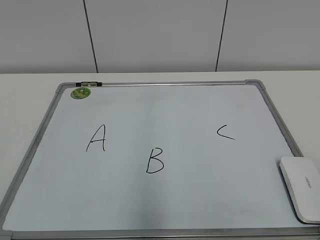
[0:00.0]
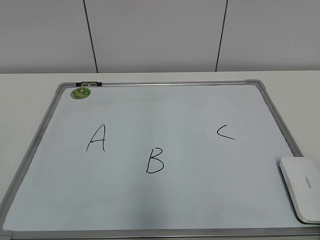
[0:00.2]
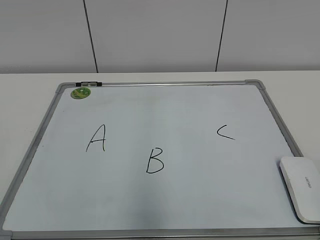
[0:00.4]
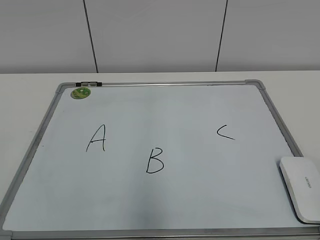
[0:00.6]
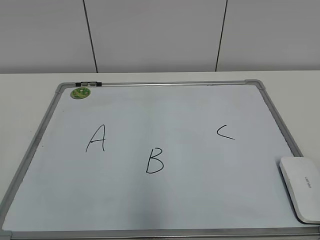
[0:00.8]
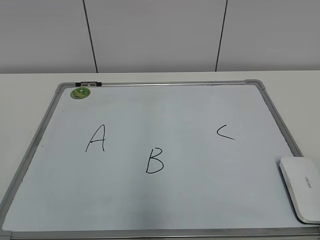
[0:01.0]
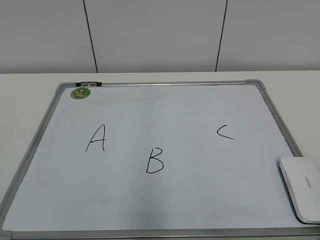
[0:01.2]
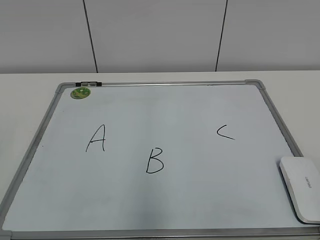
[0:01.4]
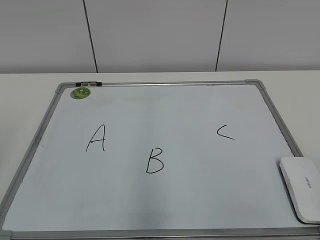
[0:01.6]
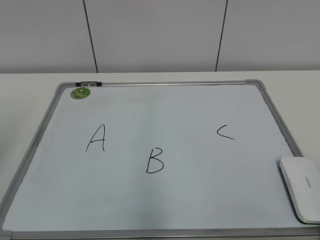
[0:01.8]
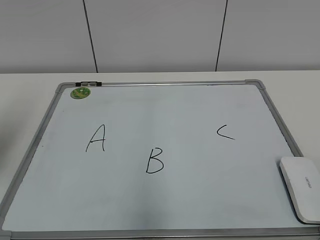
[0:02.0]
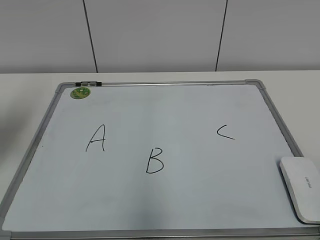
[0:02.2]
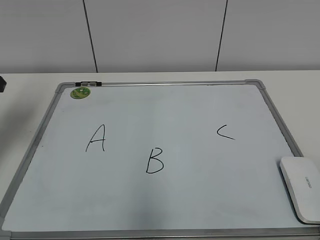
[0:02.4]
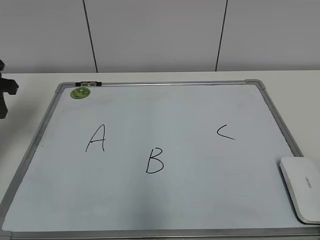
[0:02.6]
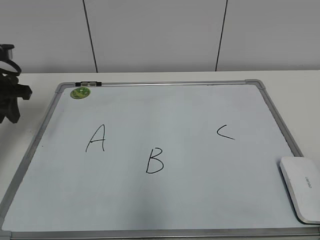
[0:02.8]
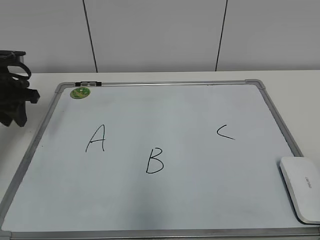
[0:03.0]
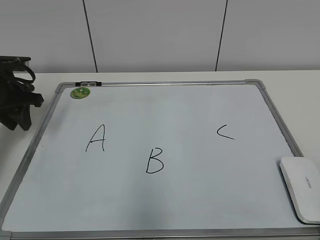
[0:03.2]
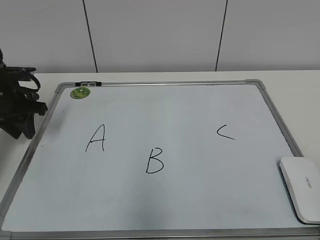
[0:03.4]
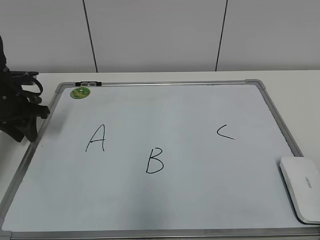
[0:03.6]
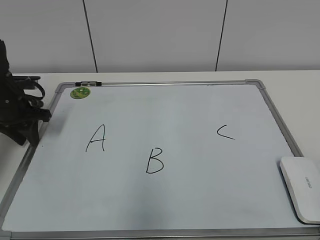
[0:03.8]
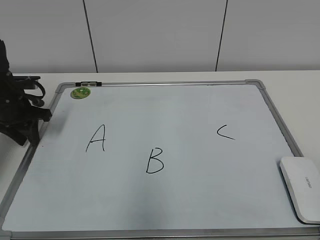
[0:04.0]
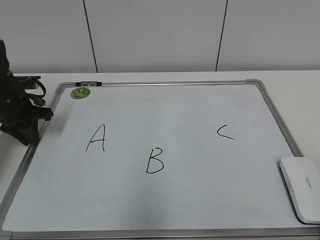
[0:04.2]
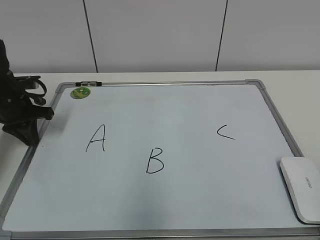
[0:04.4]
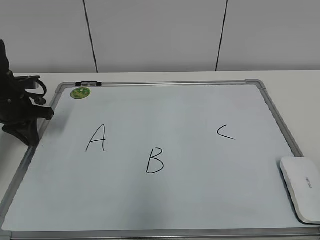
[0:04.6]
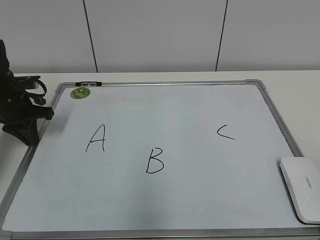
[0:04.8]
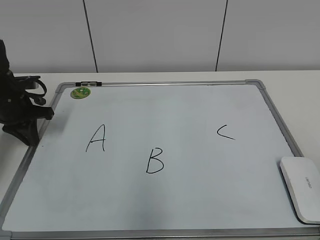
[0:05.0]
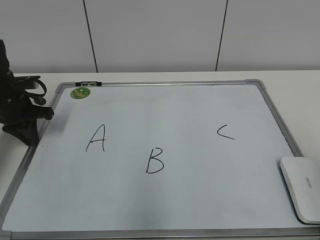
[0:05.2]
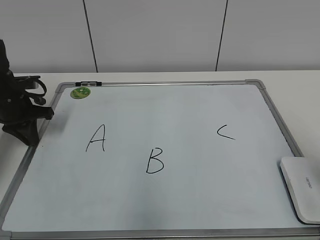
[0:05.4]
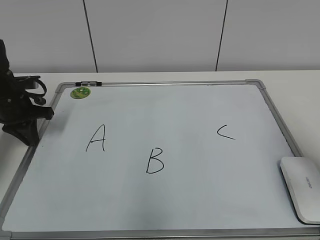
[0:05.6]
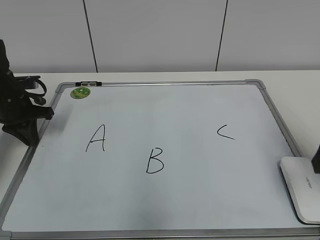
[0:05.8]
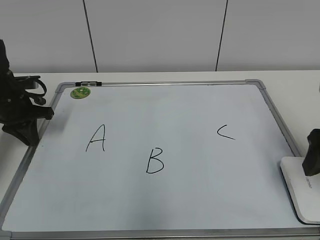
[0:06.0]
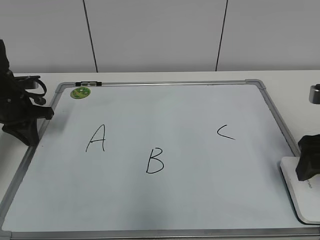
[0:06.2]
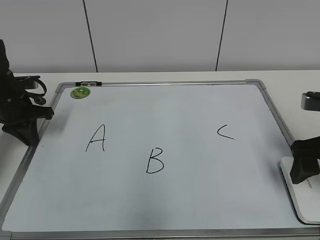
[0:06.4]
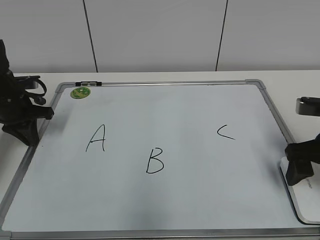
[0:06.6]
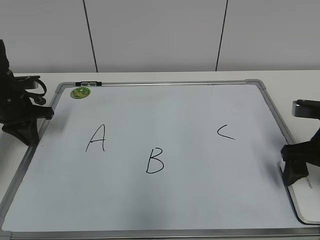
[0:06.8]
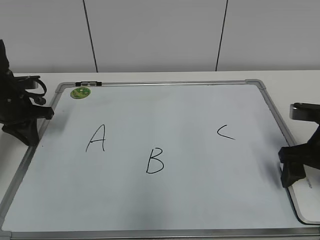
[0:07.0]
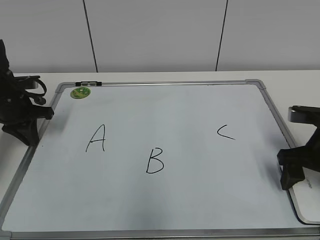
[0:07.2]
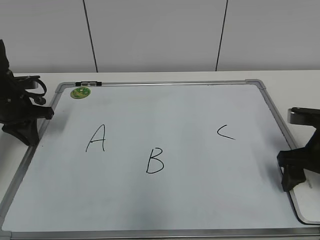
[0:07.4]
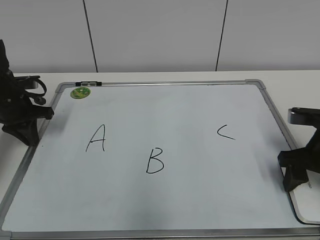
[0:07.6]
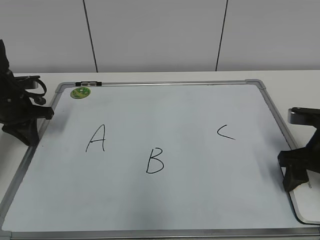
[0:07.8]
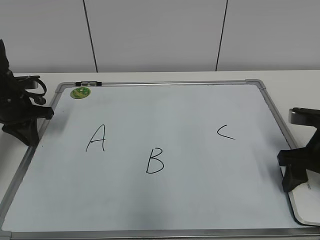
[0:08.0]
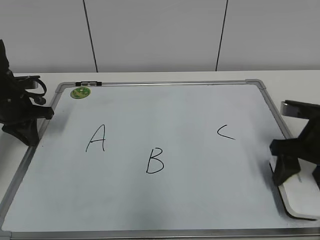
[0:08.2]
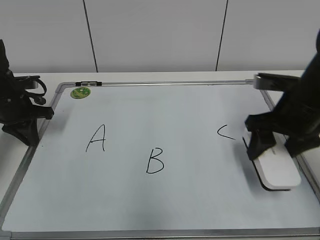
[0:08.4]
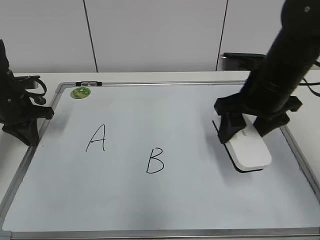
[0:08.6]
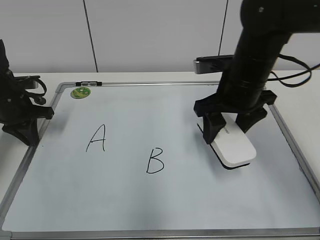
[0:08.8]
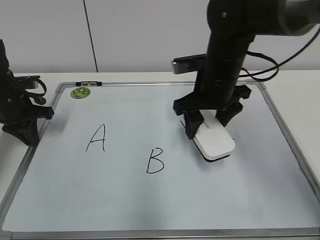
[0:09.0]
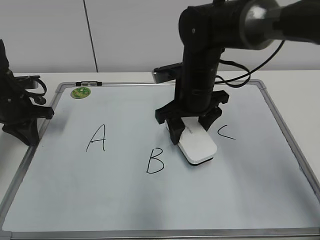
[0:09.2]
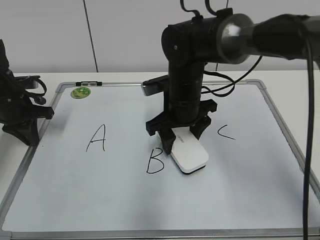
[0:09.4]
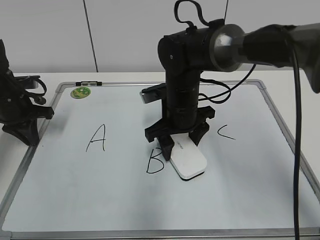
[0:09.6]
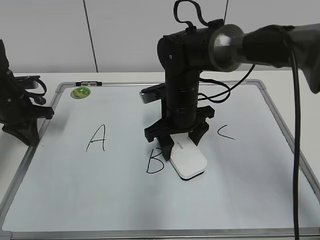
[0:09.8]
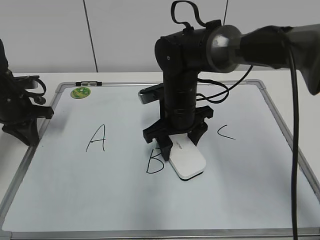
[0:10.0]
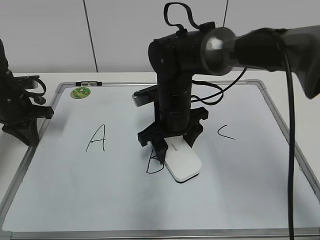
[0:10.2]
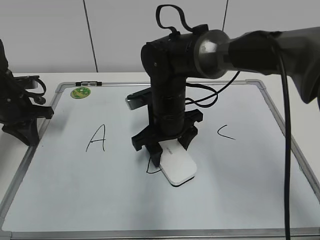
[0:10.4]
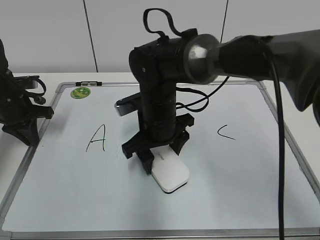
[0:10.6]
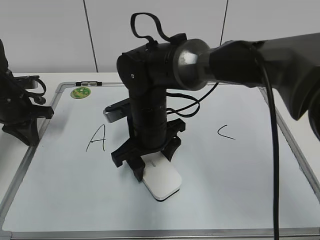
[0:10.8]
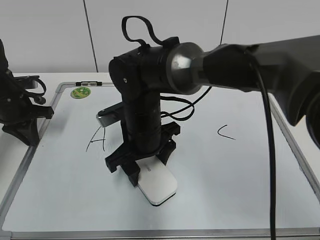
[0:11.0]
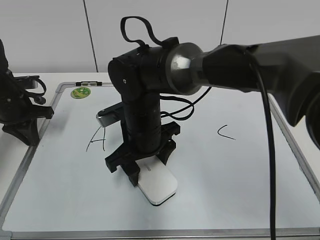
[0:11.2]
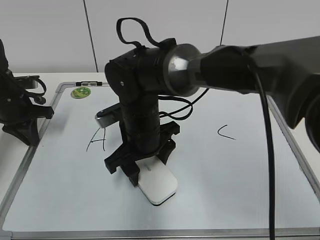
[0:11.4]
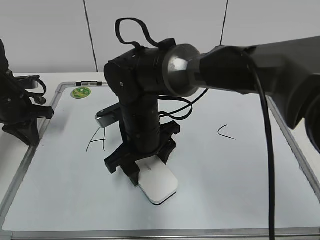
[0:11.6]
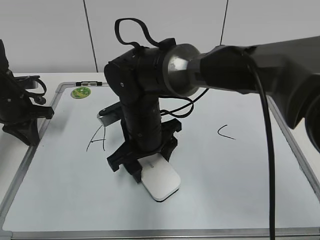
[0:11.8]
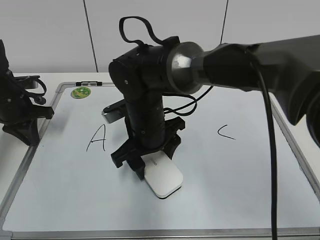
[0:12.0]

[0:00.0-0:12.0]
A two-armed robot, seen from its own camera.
Task of the whole recording: pick up the eraser on the blackboard and erase the letter "B".
Step, 0:00.0 to 0:04.2: Hold the drawing board steady with your left hand.
Step, 0:04.6 to 0:07.6: Grab the eraser with your right hand.
0:01.6 to 0:03.0: The left gripper shifts some 30 cm forward.
0:03.0 to 0:04.4: The left gripper heads downward, covering some 5 cm, and closes.
0:04.4 to 0:06.0: The right gripper travels forward by some 25 cm, and opens up.
0:06.0 to 0:07.6: The right gripper heads downward, covering roughly 10 cm, and closes up.
0:07.6 to 0:09.0: The right gripper shifts roughly 20 cm to the left, forward and upward.
0:09.0 to 0:10.4: The right gripper heads to the left and downward, covering about 10 cm.
0:10.4 to 0:12.0: The right gripper ends up roughly 5 cm from where it was.

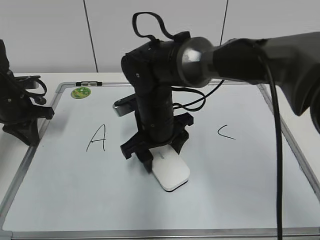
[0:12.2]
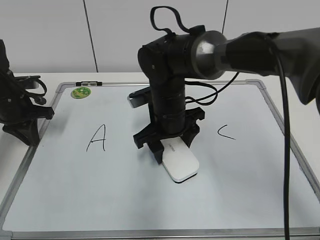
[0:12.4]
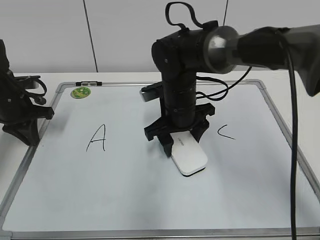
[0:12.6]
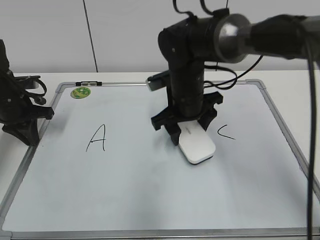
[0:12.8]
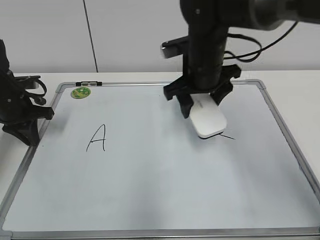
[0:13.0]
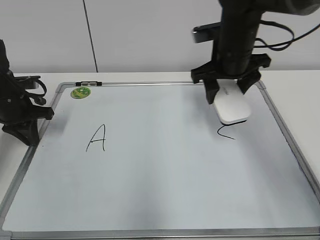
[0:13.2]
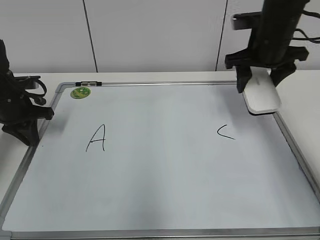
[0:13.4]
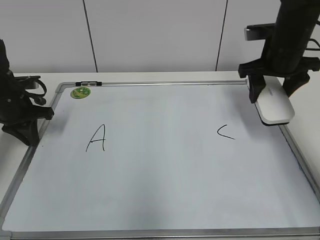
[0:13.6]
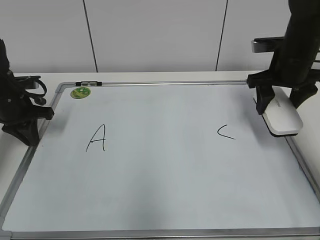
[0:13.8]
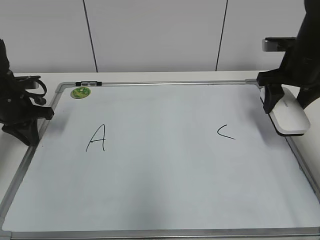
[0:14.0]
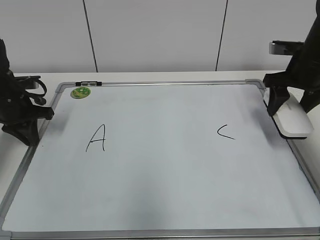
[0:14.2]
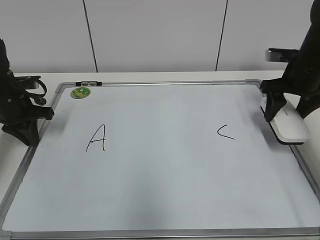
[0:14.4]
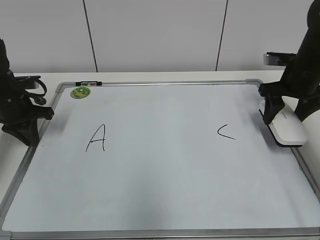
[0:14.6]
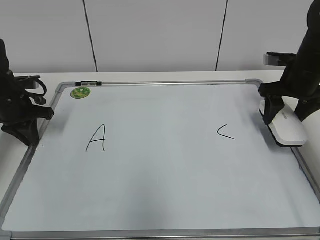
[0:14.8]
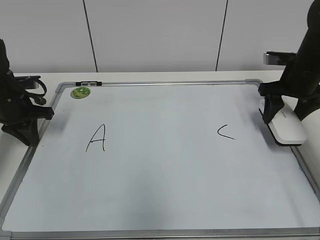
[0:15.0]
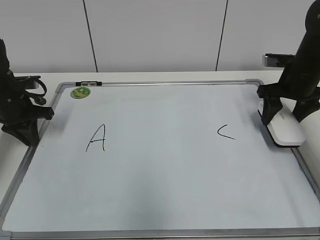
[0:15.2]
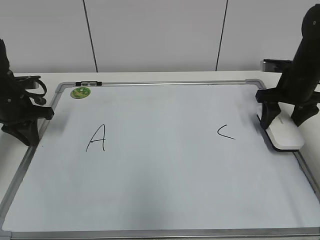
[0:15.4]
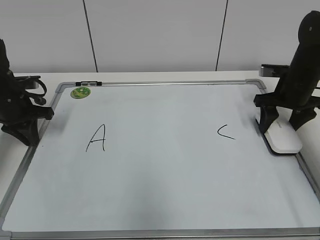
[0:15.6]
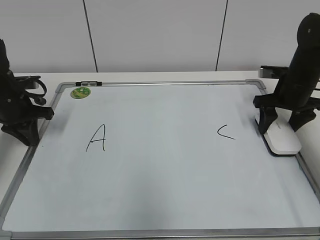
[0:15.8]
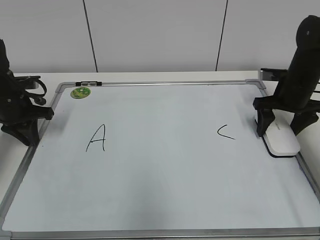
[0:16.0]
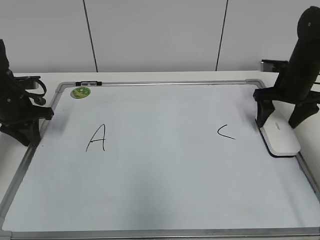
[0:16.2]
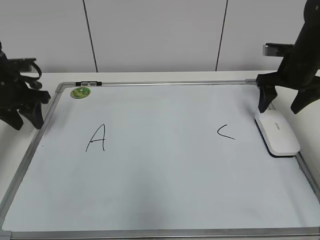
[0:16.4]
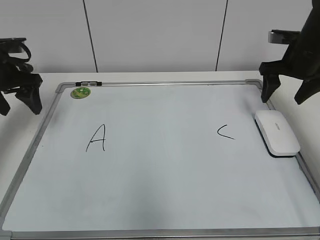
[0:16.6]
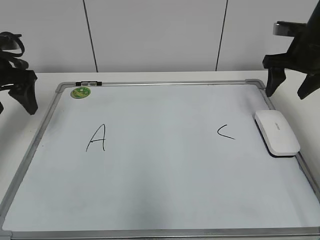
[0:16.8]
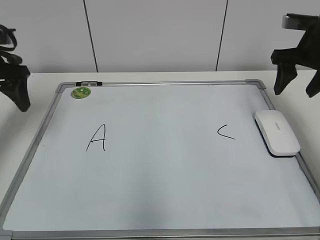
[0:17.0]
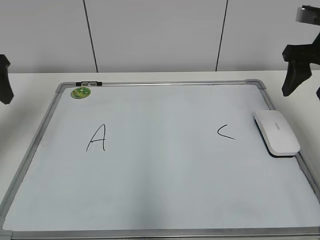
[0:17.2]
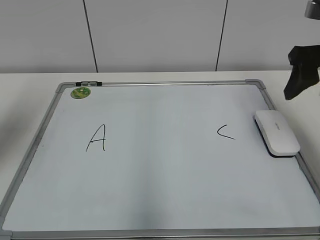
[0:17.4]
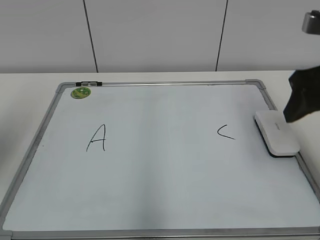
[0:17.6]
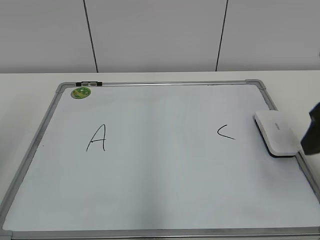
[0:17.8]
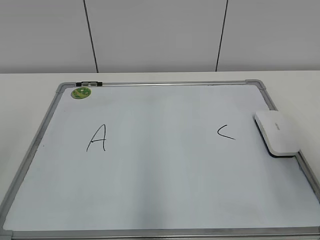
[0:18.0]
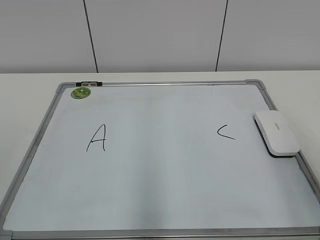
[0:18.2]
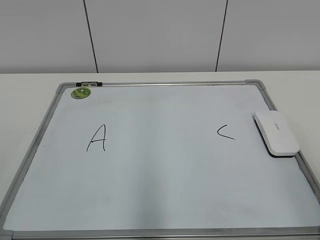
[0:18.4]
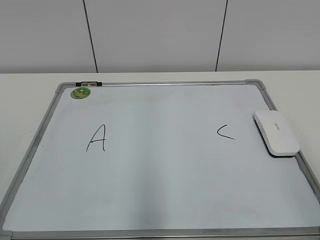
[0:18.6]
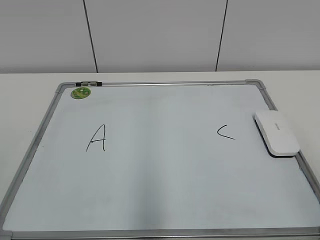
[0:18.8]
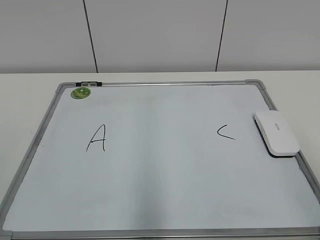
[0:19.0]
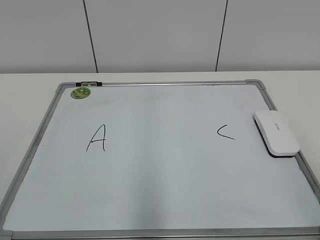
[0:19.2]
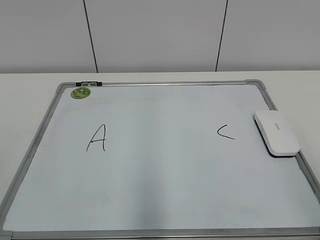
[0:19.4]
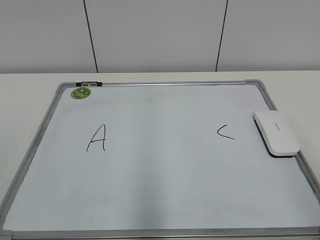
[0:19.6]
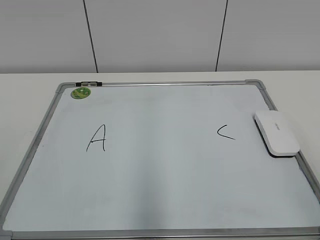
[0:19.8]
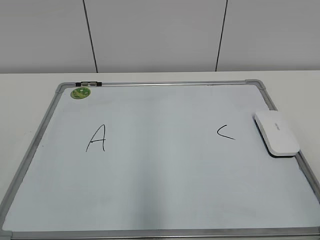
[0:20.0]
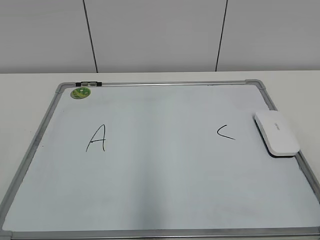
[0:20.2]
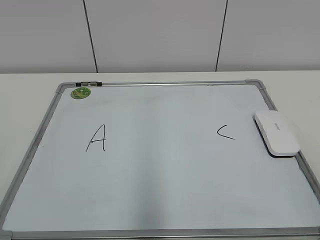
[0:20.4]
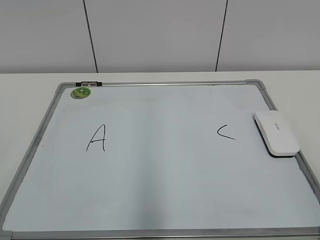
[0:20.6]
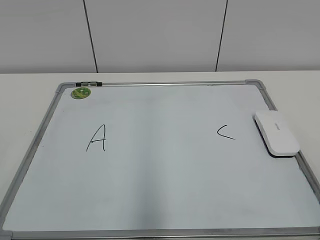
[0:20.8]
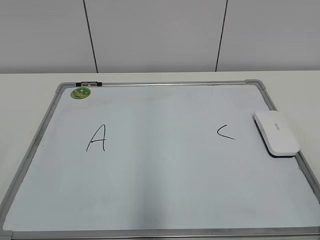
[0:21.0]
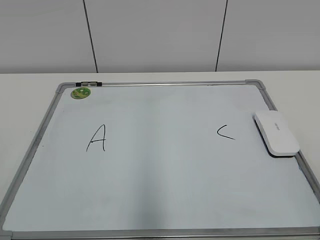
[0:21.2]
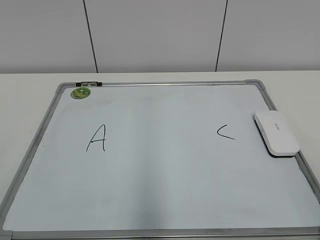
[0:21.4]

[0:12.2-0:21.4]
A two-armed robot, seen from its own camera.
Task of the whole recording: pick up the eraser on the blackboard and erase the letter "B".
Step, 0:12.8 to 0:15.6: Put down the eraser with your right hand.
0:12.2 to 0:13.8: The right gripper goes approximately 25 cm to the right.
0:13.8 to 0:15.2: The right gripper moves approximately 5 cm.
0:15.2 to 0:16.8: The left gripper goes about 10 cm upward, and opens its fingers. Meanwhile the right gripper opens its fingers.
0:16.8 to 0:18.4: Both grippers move backward, approximately 35 cm. The right gripper closes its fingers.
